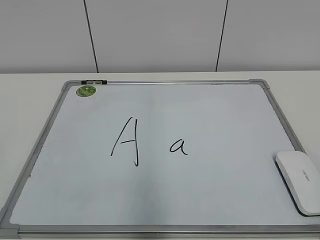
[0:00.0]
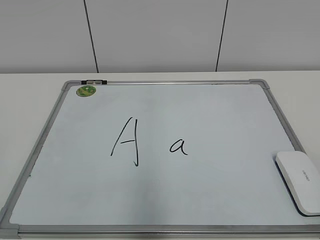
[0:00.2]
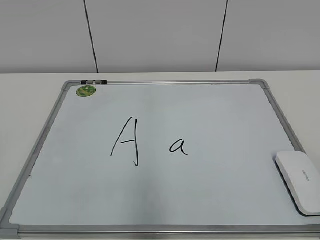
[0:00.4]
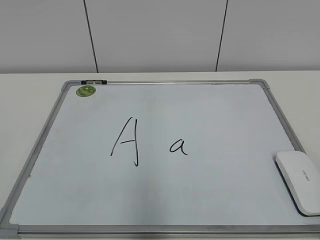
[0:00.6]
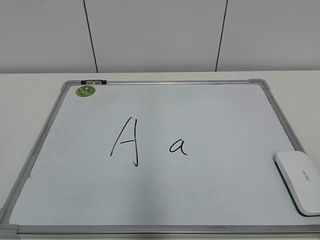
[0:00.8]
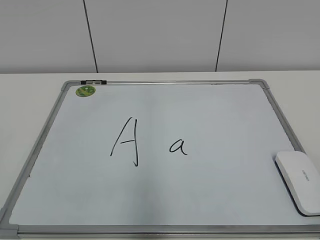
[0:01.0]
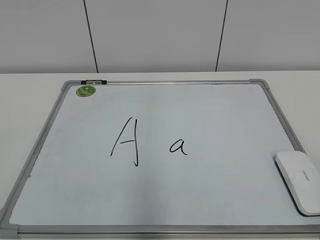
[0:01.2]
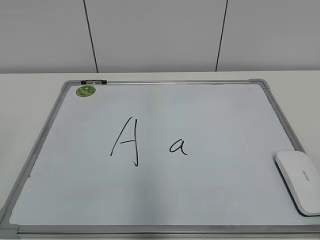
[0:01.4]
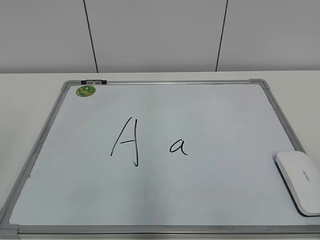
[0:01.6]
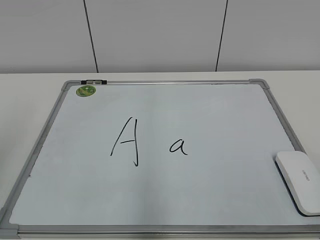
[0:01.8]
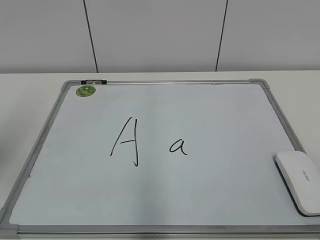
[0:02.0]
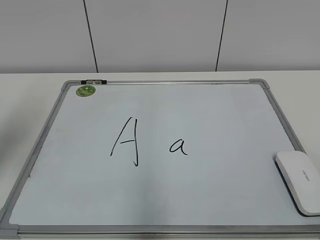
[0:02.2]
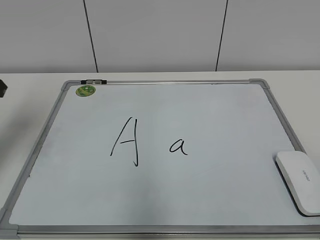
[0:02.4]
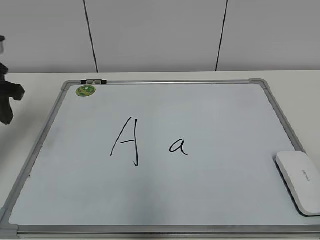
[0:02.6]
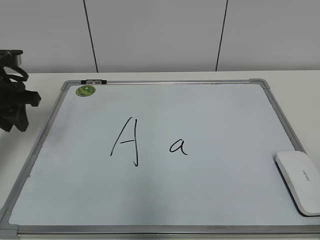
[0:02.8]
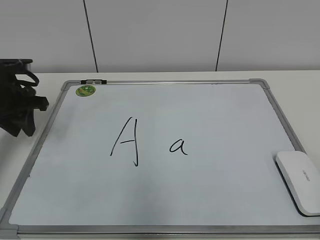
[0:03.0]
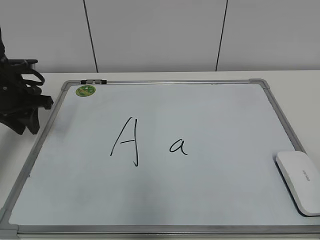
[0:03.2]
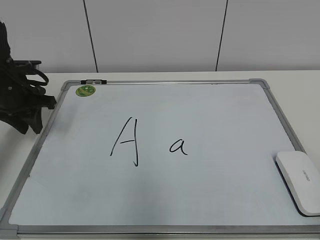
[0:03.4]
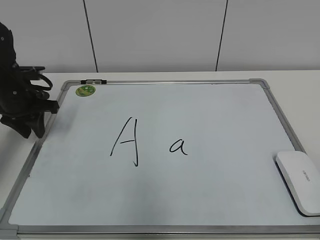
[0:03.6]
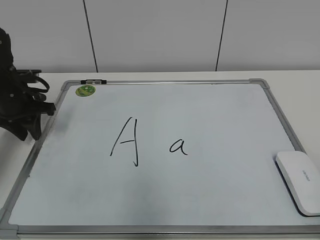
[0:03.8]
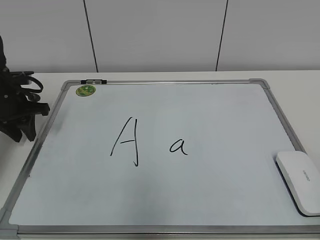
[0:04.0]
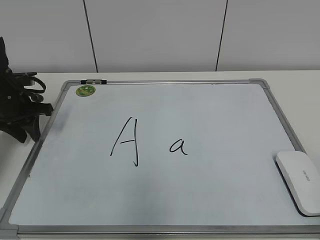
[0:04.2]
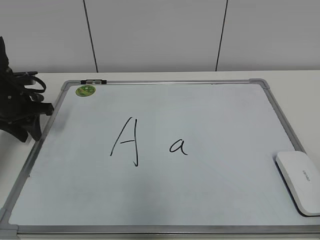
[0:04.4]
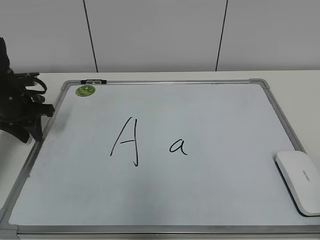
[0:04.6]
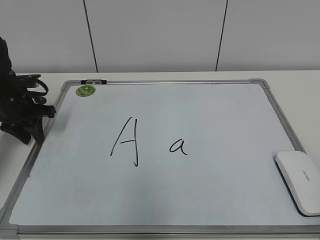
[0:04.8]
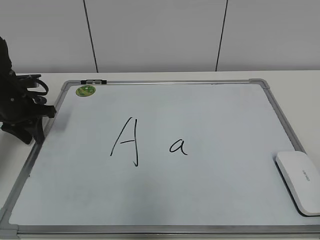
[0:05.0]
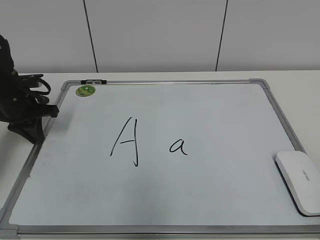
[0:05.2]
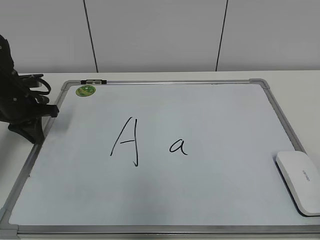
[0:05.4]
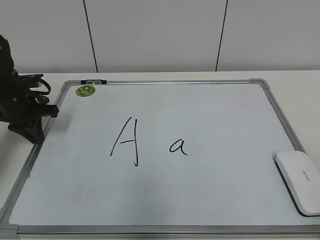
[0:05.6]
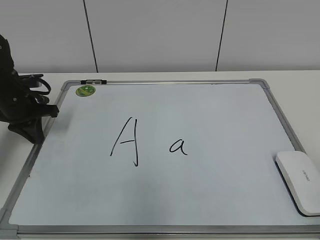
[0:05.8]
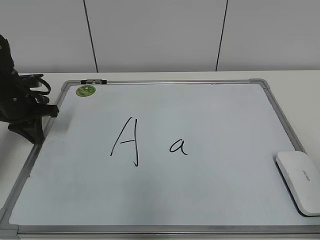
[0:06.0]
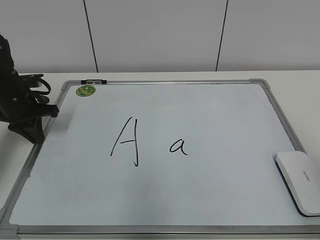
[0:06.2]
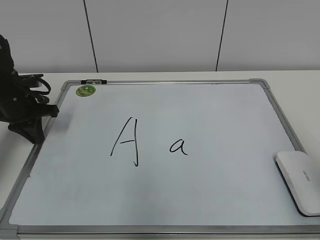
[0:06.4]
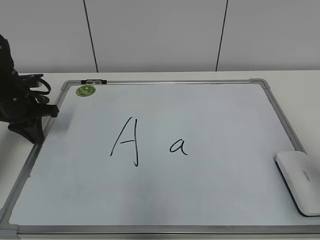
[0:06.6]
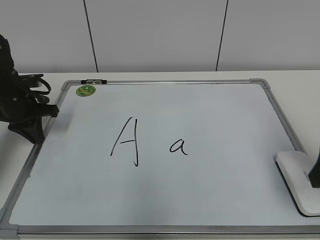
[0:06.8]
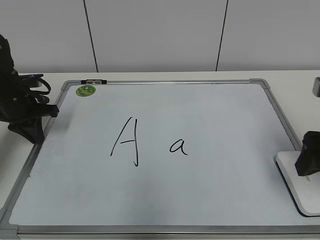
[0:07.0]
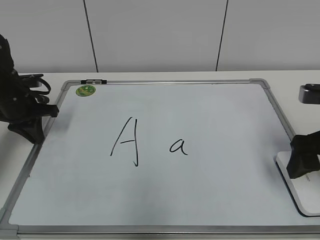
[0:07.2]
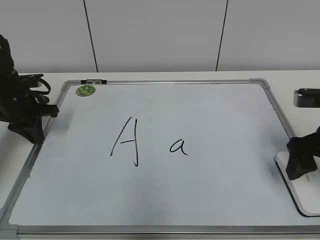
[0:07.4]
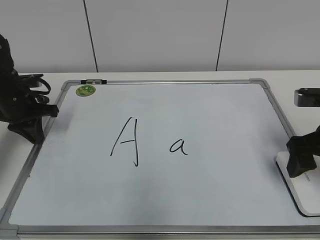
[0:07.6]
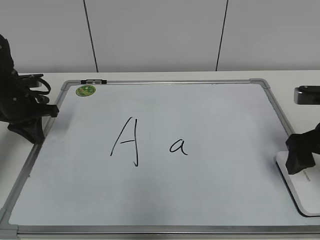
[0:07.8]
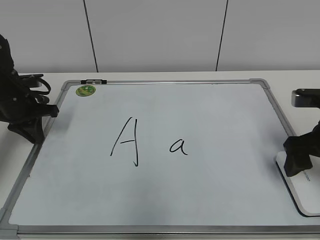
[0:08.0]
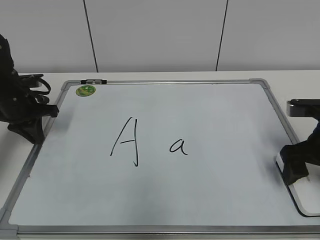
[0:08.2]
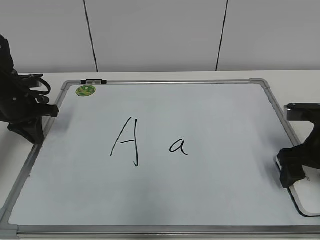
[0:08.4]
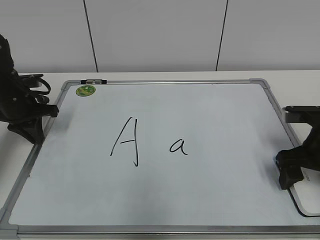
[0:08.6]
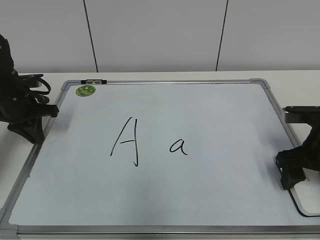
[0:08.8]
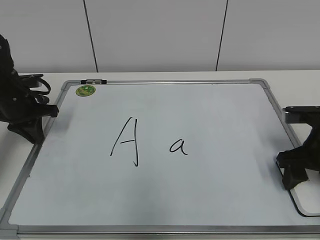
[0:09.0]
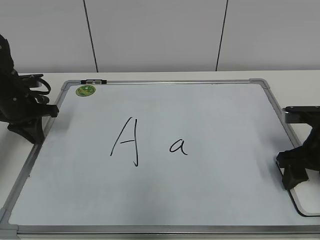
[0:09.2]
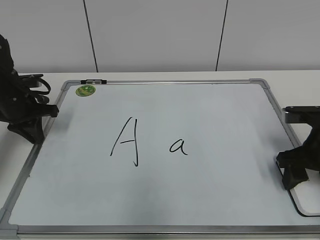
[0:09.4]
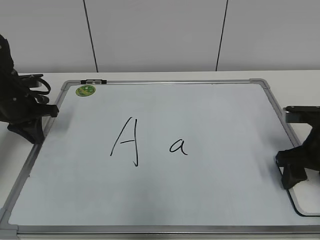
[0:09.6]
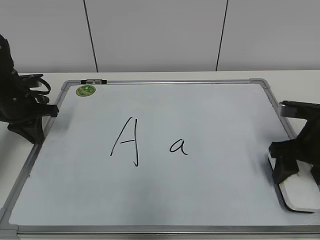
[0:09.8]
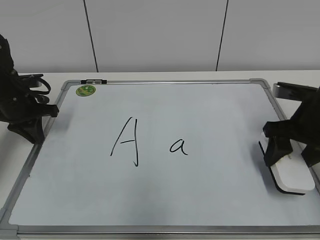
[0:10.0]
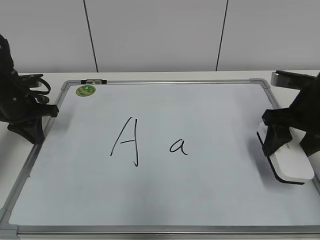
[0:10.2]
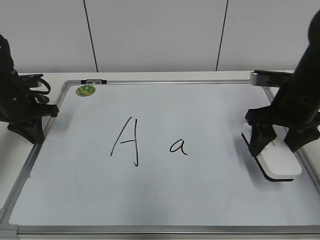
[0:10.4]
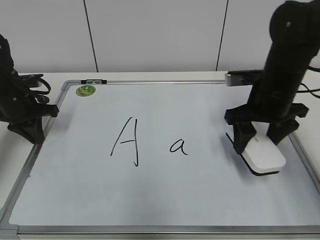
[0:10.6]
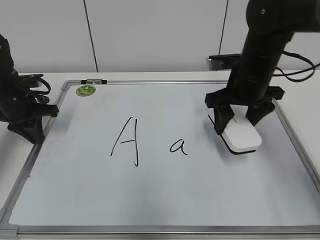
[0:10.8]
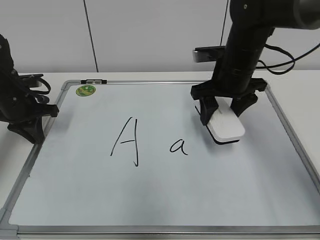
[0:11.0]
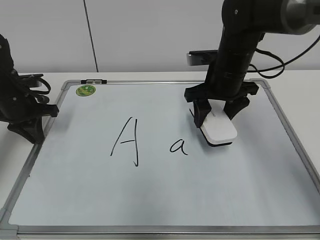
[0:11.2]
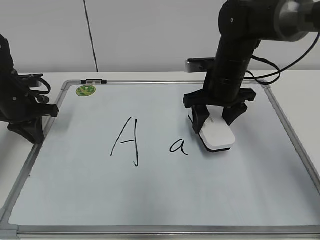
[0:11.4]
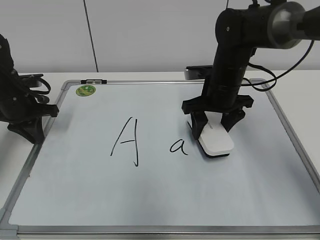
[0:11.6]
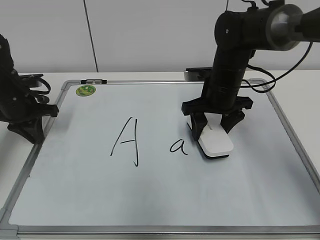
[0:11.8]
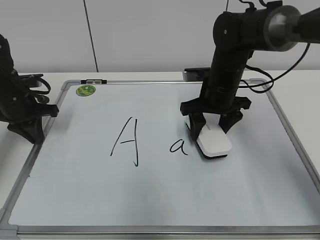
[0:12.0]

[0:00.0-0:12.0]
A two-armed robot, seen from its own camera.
Task of the whole recording: pick up the eraser on the blackboard and erase the letter "a".
Step, 0:00.0 to 0:05.0: Hold the drawing board steady with your left hand.
Step, 0:05.4 to 0:09.4: Grab the eraser with your right hand.
0:01.6 to 0:03.0: The left gripper is displaced forward by roughly 30 cm.
0:03.0 to 0:04.4: The left gripper moves some 5 cm.
0:04.4 to 0:06.0: The left gripper closes up.
0:06.0 to 0:07.6: The right gripper moves forward and downward, approximately 25 cm, and opens its fingers.
0:07.6 to 0:09.0: The right gripper closes its fingers.
0:09.0 to 0:10.4: The right gripper travels upward by approximately 5 cm.
0:10.4 to 0:12.0: The right gripper is displaced to the left and forward by approximately 15 cm.

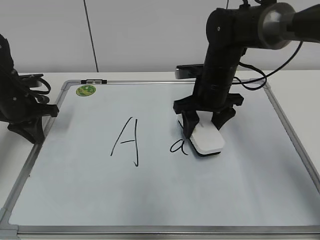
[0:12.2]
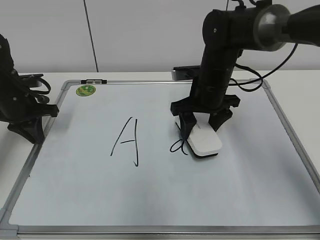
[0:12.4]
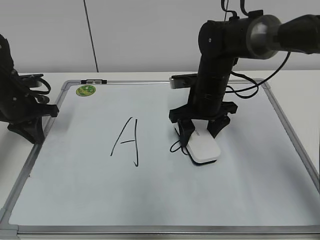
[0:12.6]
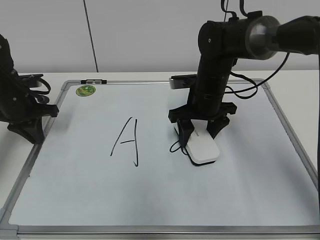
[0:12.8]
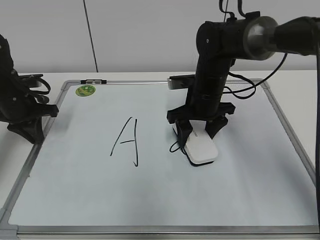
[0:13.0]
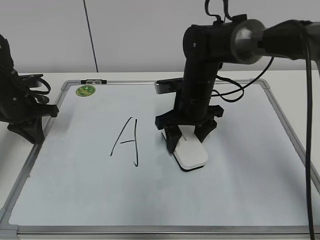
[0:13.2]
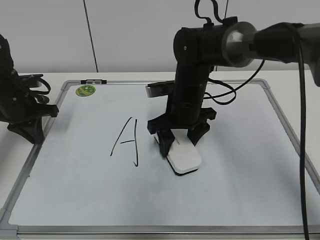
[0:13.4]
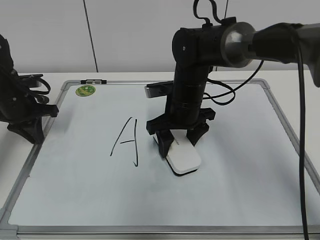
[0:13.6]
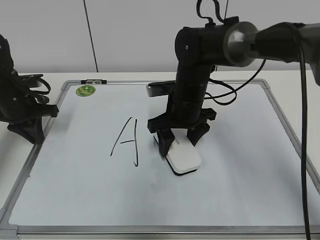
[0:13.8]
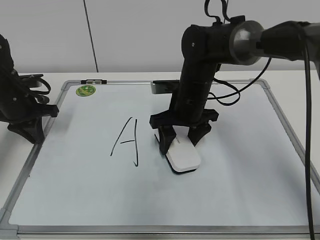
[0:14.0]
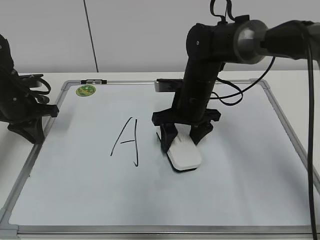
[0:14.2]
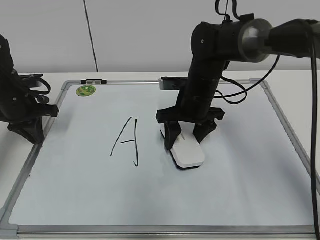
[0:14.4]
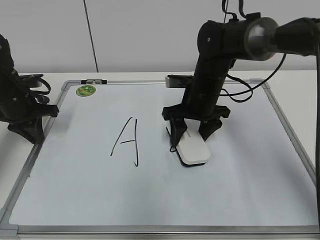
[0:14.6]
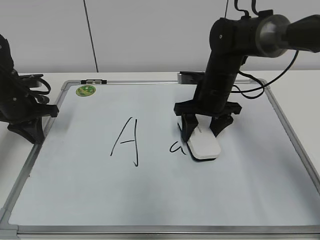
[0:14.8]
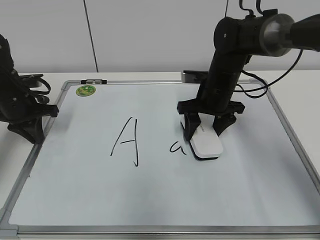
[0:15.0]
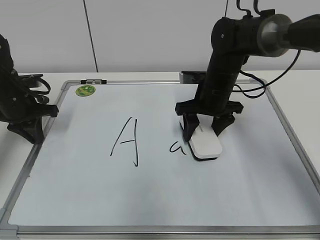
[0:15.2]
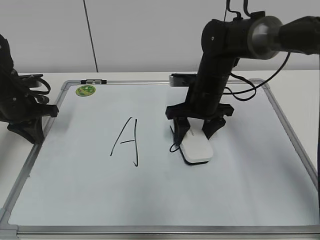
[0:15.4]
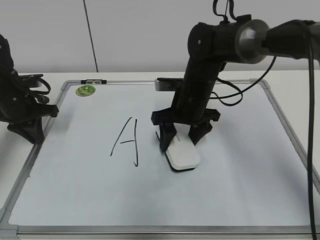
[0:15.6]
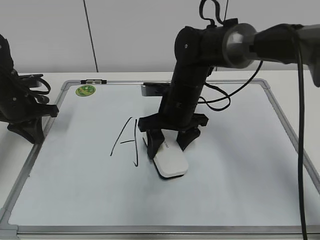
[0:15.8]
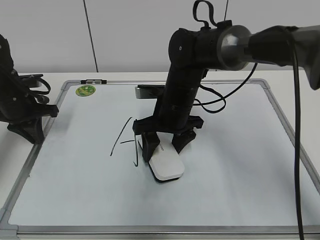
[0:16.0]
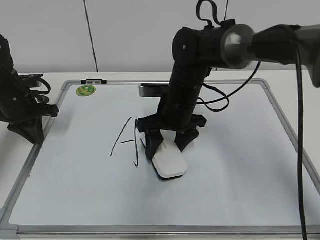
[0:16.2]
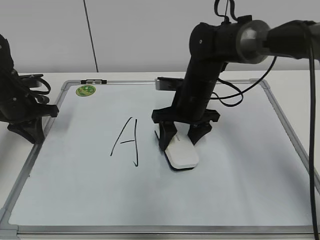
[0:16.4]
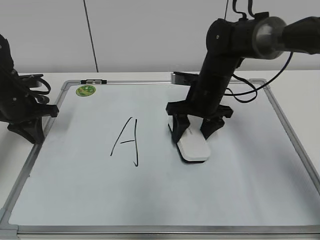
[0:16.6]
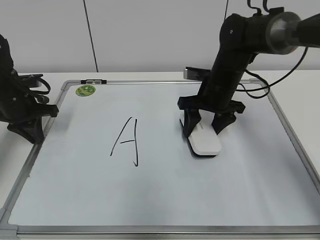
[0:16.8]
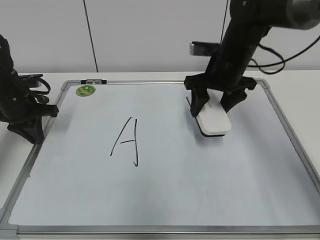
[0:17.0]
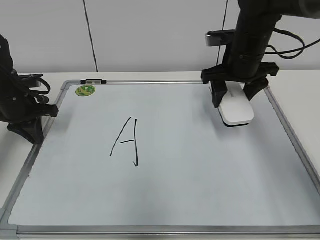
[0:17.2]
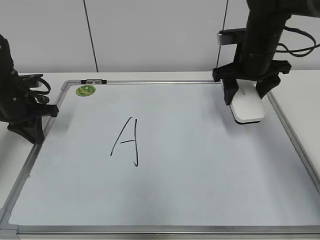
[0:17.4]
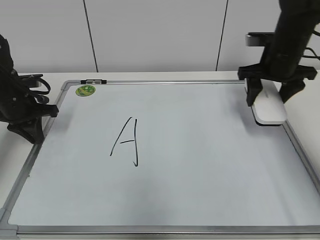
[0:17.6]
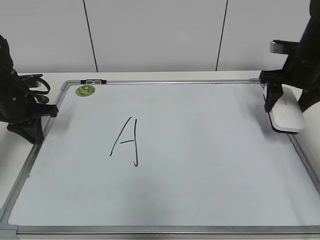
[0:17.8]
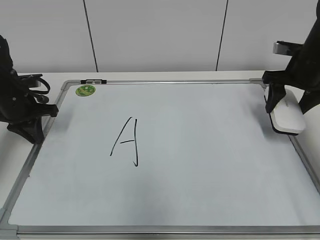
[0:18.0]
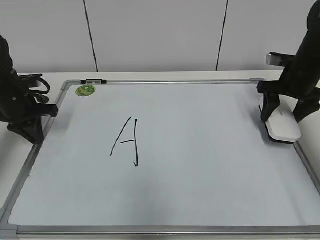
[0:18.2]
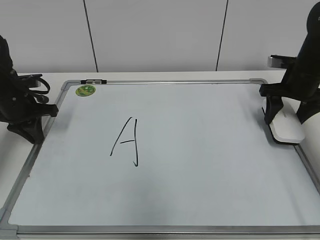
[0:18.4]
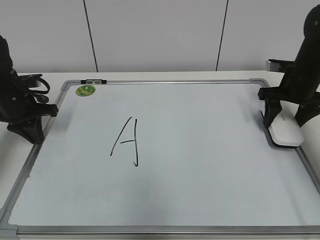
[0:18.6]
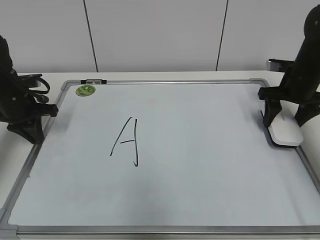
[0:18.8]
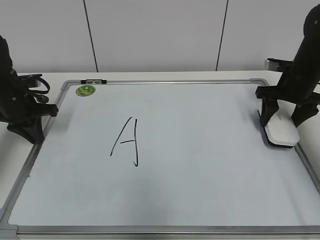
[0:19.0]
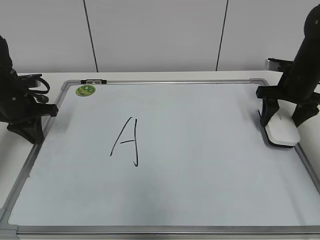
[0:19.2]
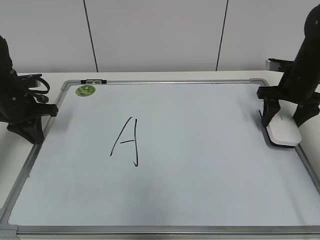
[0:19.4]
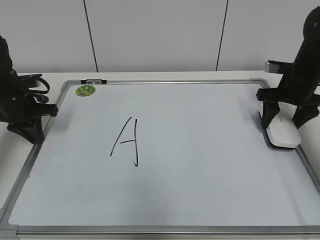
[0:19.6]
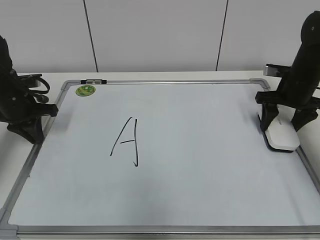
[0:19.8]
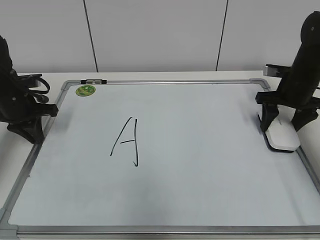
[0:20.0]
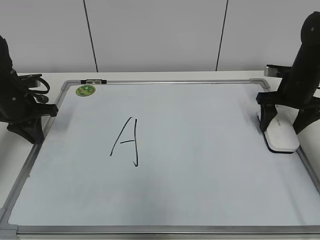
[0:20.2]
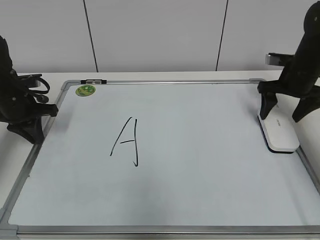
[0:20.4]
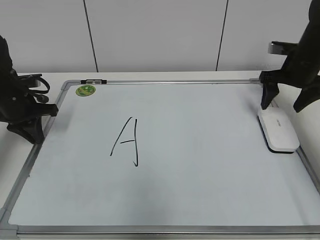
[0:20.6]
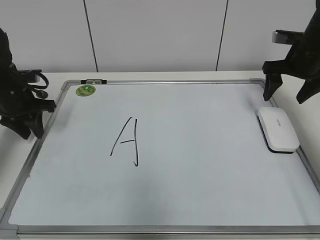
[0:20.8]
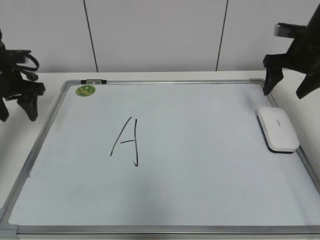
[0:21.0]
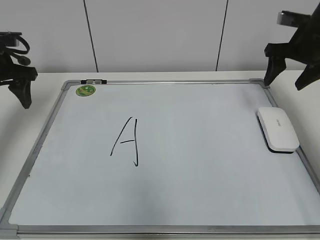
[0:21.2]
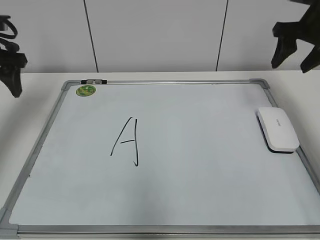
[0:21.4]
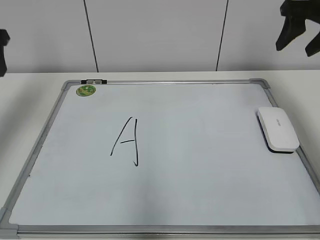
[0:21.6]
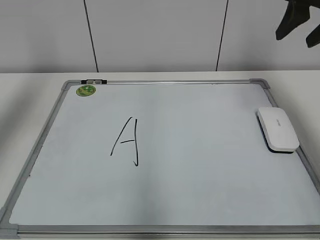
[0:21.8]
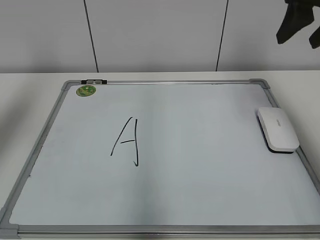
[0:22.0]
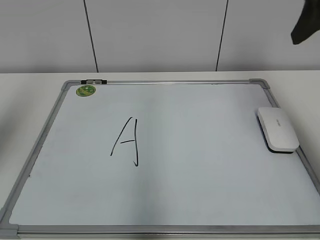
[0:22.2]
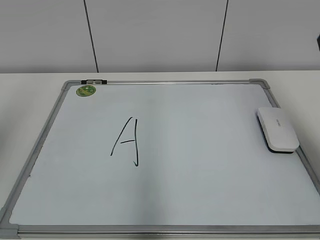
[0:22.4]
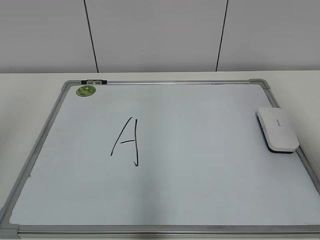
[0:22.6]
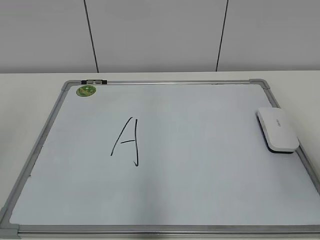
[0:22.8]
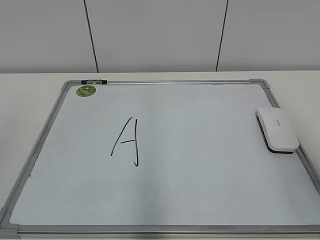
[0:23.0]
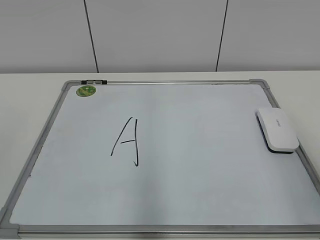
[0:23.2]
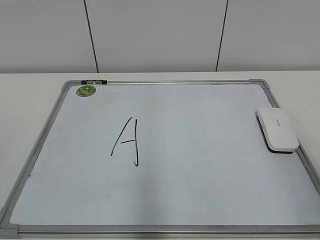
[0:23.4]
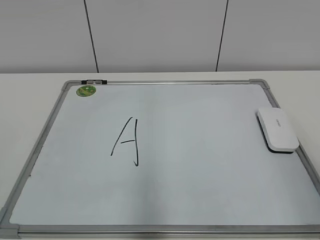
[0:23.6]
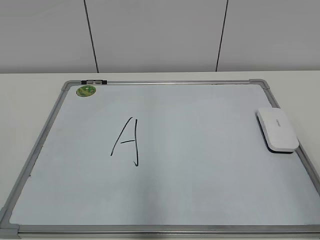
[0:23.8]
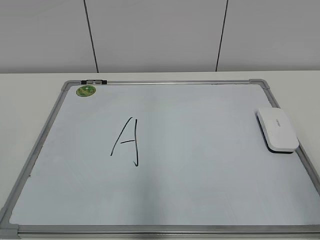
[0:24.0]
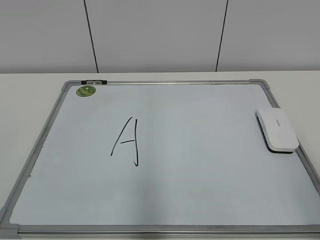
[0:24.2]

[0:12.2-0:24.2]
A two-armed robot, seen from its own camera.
Task of the whole recording: pick up the eraser on the blackboard and erase the letter "a".
Step, 0:12.2 to 0:16.6: Erase the letter a with your right hand.
Step, 0:16.8 to 0:20.0: Put down the eraser with your right hand.
0:12.2 to 0:13.8: The right gripper shifts some 5 cm to the left.
0:13.8 to 0:15.2: The right gripper shifts about 5 cm to the right.
0:15.2 to 0:16.6: The right gripper travels to the left and back again, some 10 cm each way.
0:16.6 to 0:18.2: The right gripper goes about 20 cm to the right.
0:18.2 to 0:19.8: The grippers stay close to where they were, moving slightly.
0:19.8 to 0:21.2: Both grippers travel together upward, approximately 10 cm. The right gripper opens its fingers. The left gripper opens.
0:21.2 to 0:22.6: Both grippers move backward and upward, about 30 cm. The right gripper closes.
0:22.6 to 0:24.2: The right gripper travels backward and downward by roughly 20 cm.
